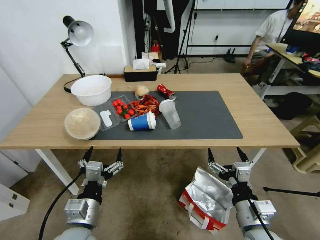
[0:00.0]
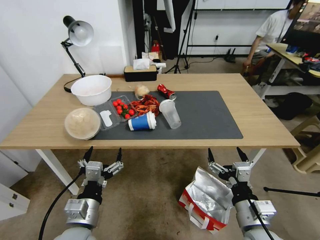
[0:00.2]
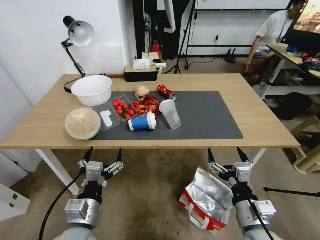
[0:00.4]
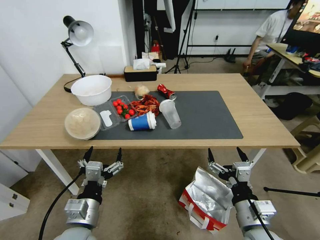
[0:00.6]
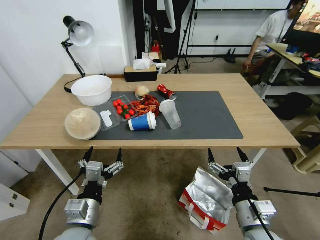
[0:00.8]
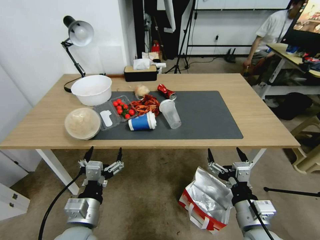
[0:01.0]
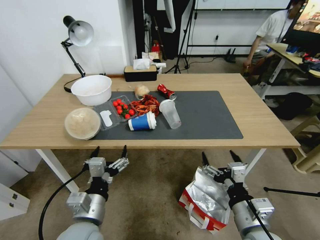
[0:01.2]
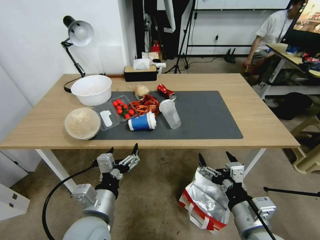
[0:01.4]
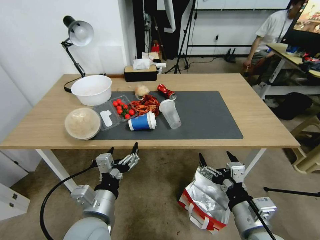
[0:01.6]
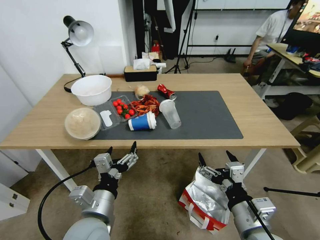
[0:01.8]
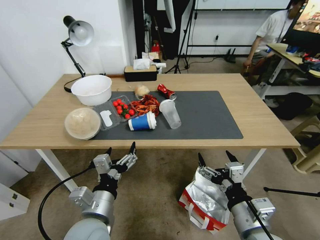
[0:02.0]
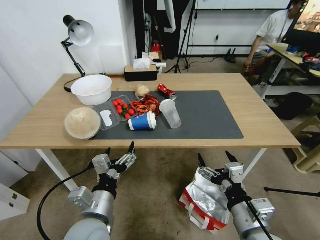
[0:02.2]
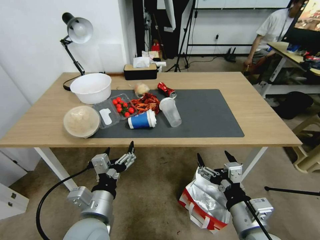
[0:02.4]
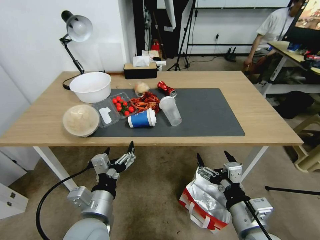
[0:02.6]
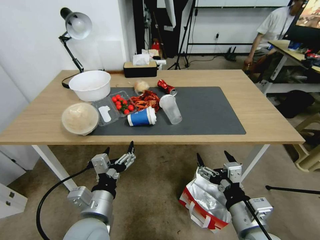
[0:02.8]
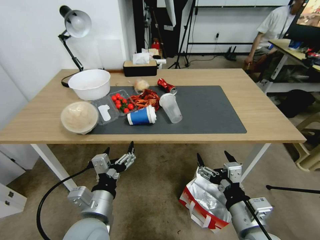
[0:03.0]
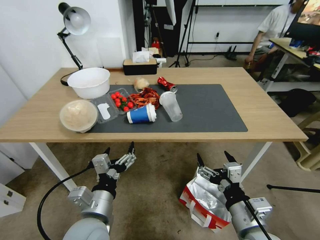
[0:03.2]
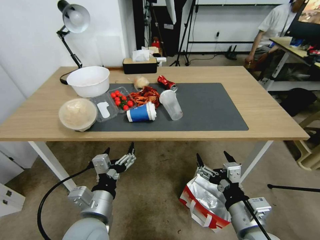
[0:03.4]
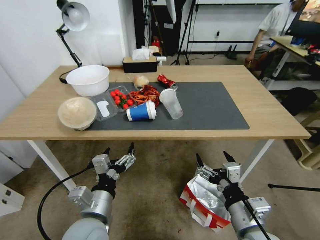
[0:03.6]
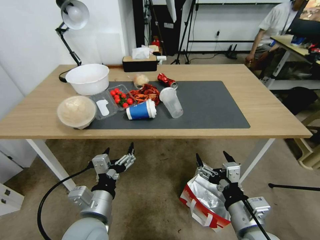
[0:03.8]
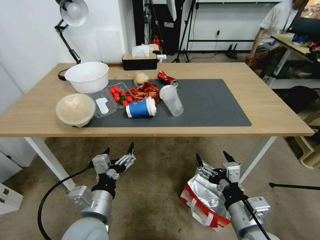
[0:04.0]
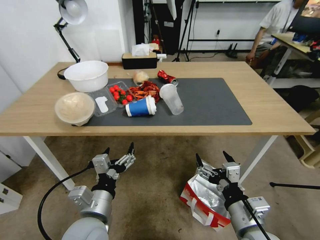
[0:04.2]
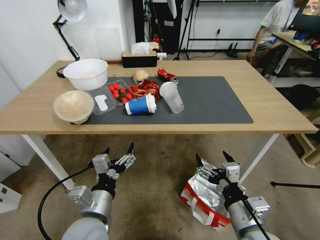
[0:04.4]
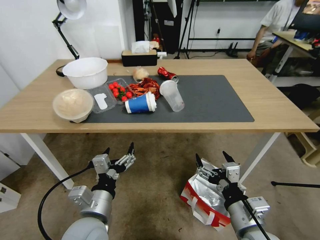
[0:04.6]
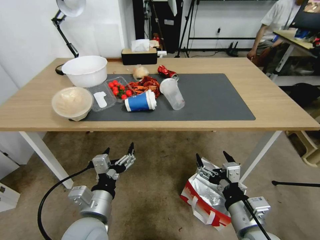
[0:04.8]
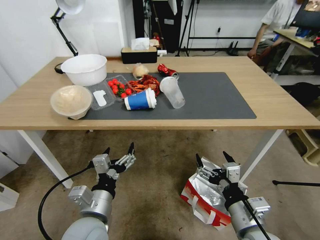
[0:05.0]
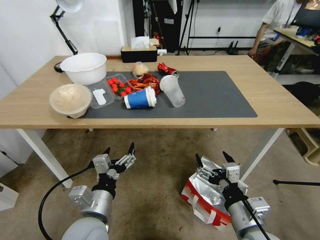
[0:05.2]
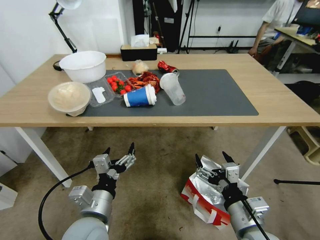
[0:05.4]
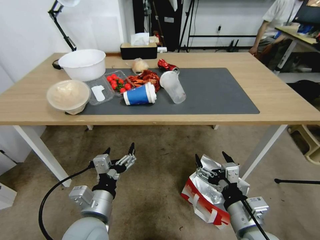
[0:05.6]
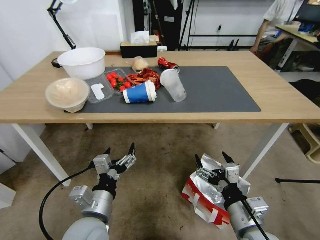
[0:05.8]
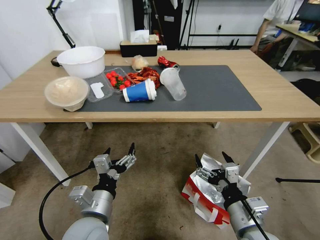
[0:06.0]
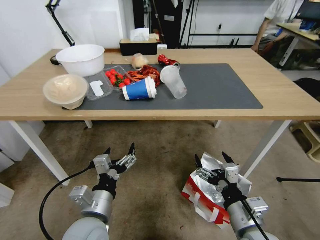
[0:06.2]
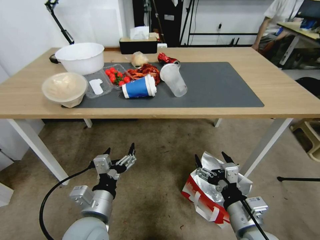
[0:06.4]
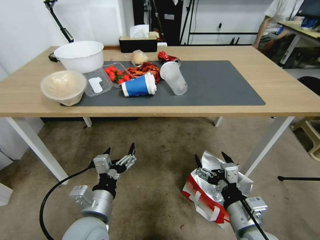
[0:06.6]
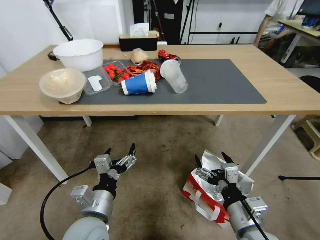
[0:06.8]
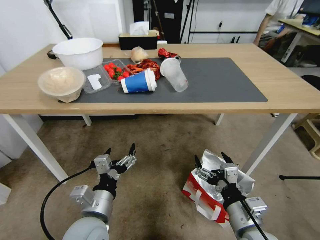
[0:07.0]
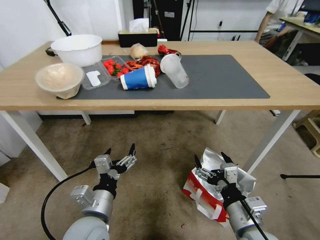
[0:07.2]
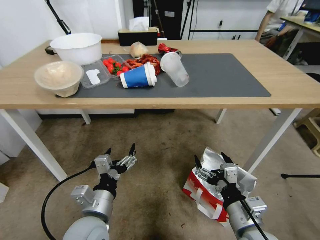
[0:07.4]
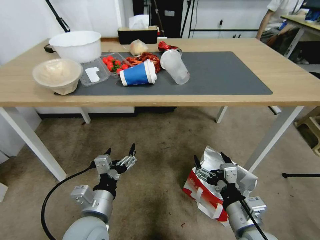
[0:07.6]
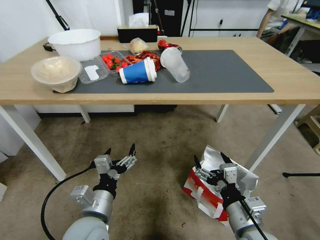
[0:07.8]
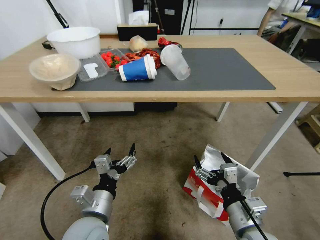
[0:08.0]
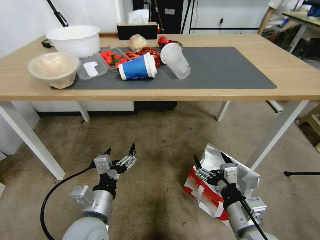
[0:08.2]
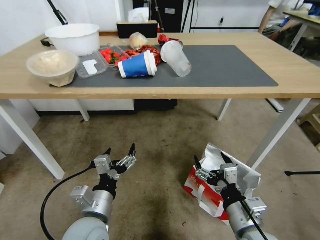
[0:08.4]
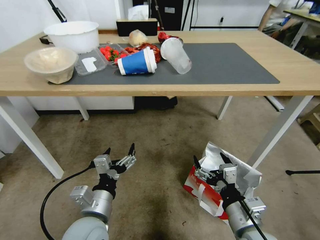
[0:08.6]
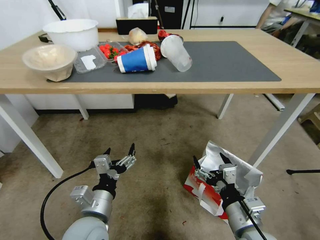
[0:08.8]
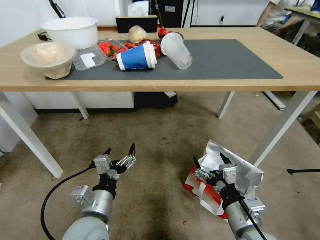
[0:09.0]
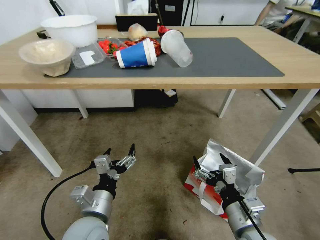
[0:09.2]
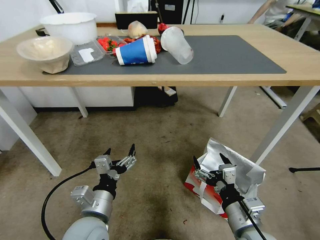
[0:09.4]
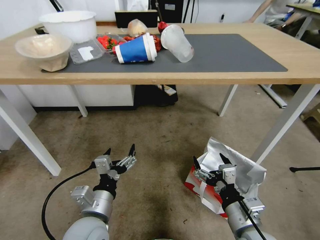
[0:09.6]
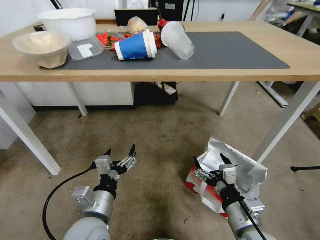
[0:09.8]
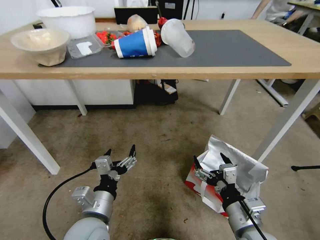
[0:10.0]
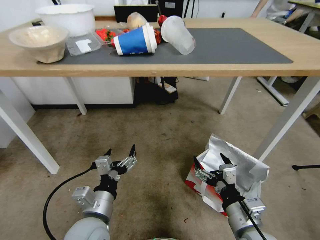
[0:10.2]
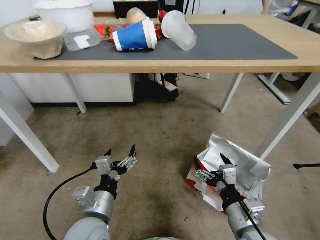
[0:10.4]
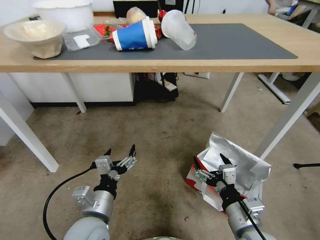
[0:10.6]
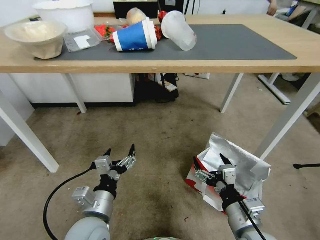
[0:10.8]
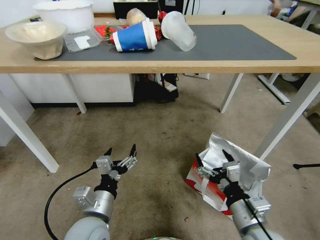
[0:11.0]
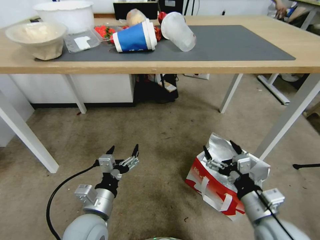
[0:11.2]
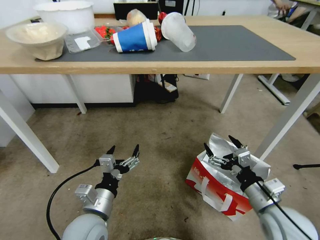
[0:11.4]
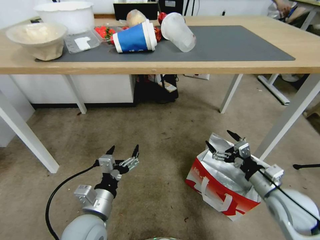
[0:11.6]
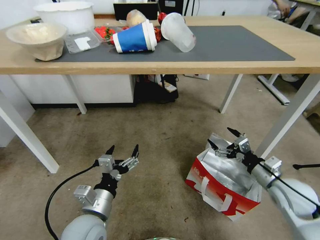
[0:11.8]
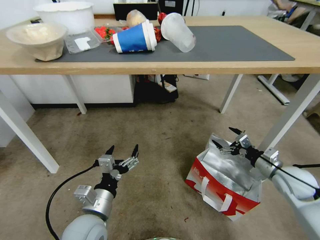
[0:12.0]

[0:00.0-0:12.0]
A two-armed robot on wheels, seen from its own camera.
Task of the whole recording: Pick up the food delivery bag from the floor and place it on the table.
0:10.4 to 0:12.0: The right gripper moves to the right and forward, about 25 cm.

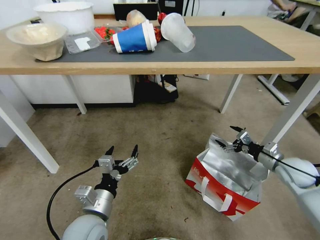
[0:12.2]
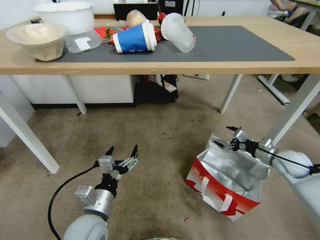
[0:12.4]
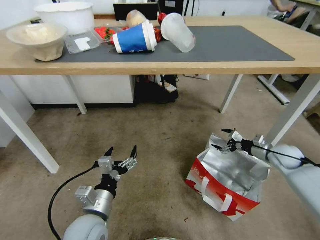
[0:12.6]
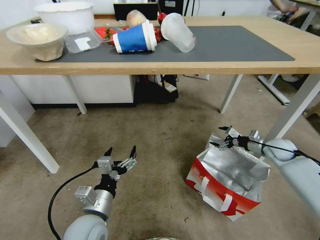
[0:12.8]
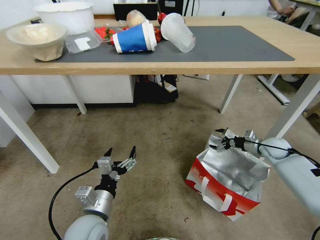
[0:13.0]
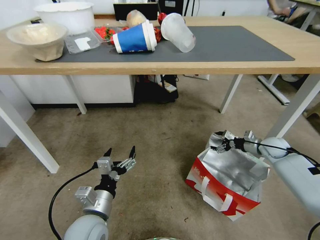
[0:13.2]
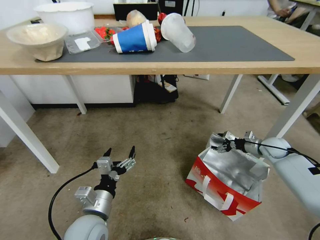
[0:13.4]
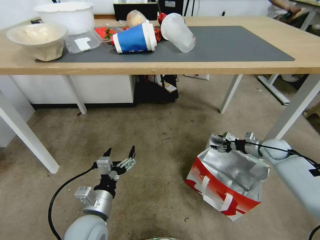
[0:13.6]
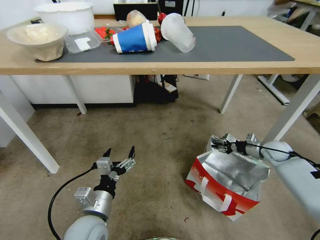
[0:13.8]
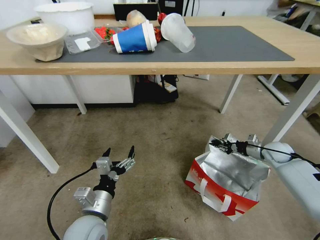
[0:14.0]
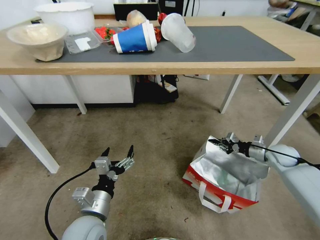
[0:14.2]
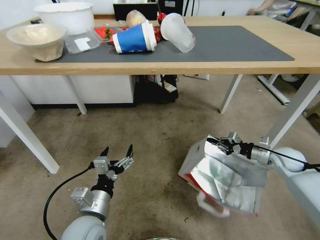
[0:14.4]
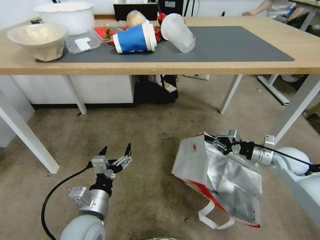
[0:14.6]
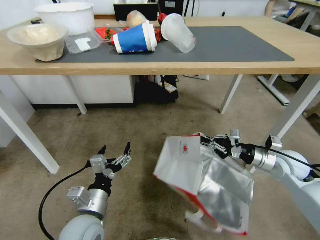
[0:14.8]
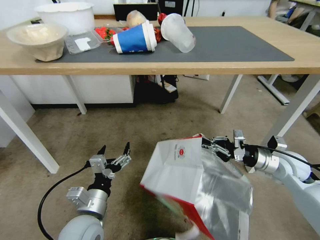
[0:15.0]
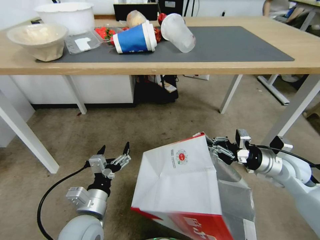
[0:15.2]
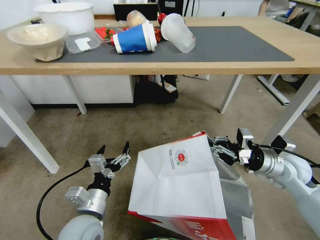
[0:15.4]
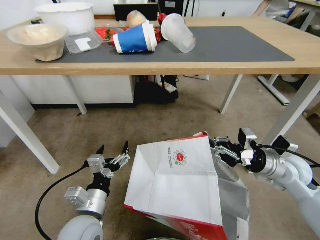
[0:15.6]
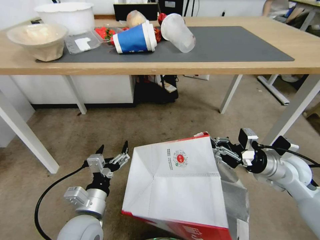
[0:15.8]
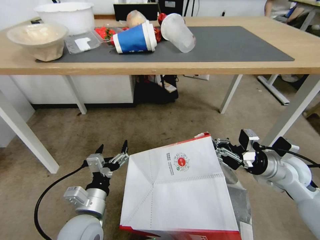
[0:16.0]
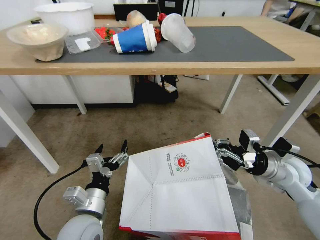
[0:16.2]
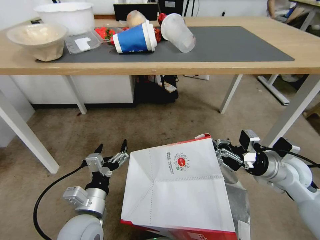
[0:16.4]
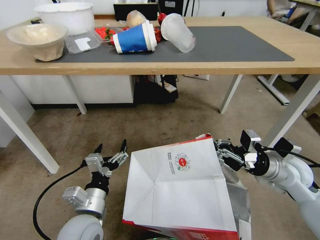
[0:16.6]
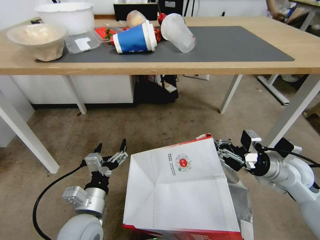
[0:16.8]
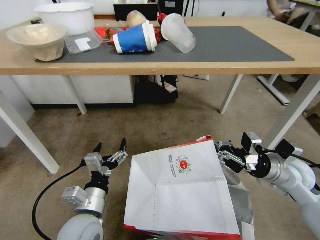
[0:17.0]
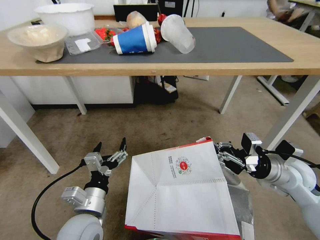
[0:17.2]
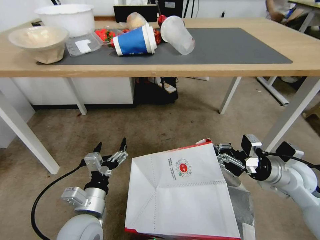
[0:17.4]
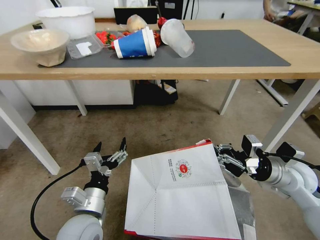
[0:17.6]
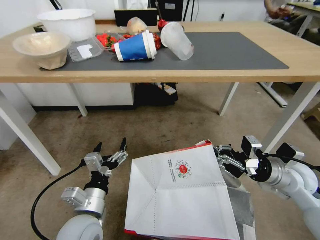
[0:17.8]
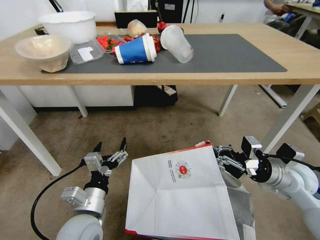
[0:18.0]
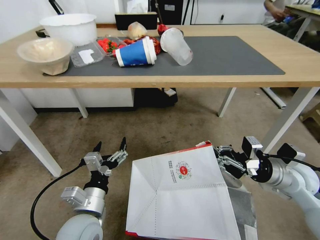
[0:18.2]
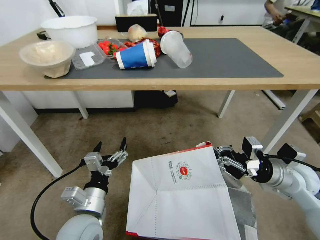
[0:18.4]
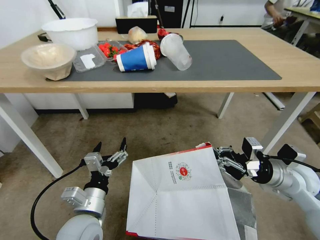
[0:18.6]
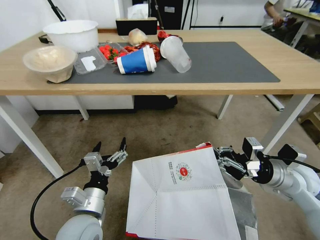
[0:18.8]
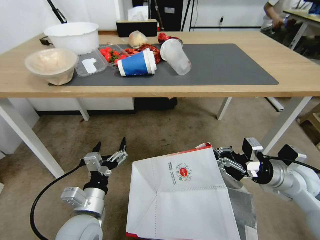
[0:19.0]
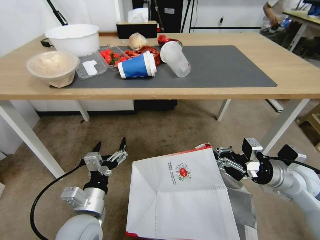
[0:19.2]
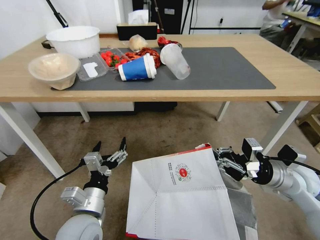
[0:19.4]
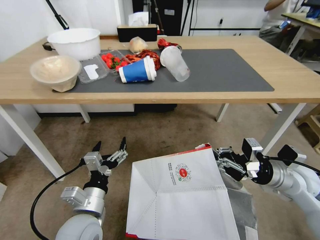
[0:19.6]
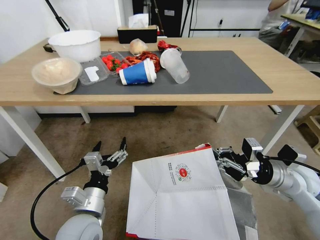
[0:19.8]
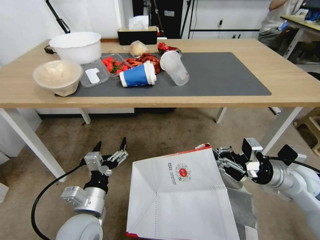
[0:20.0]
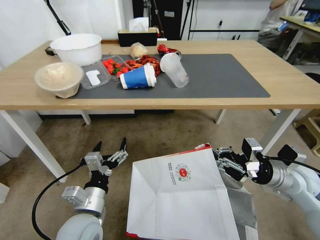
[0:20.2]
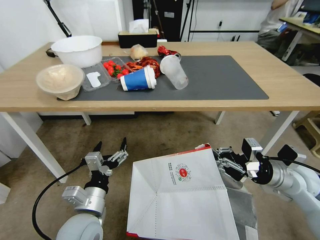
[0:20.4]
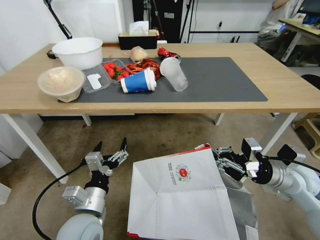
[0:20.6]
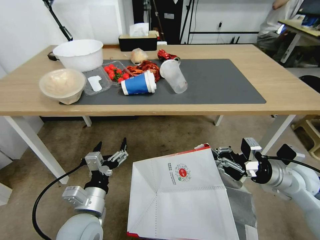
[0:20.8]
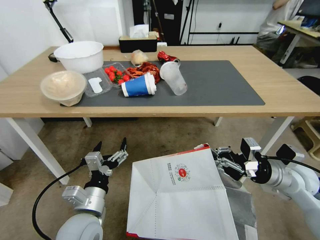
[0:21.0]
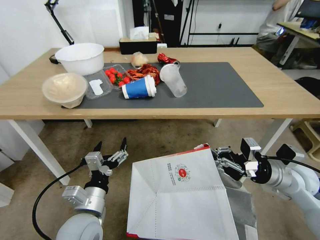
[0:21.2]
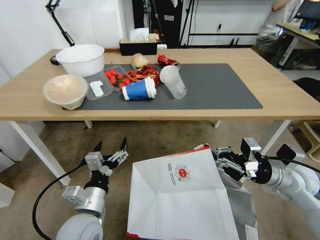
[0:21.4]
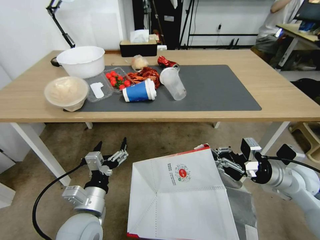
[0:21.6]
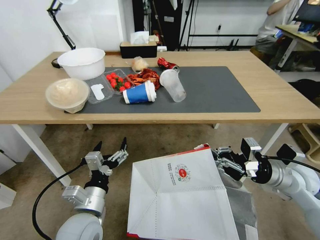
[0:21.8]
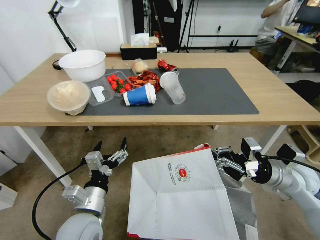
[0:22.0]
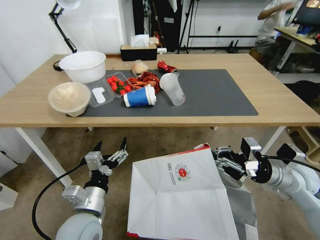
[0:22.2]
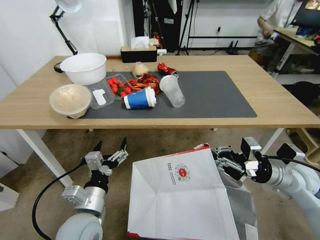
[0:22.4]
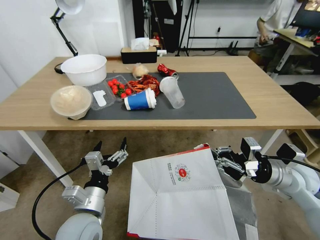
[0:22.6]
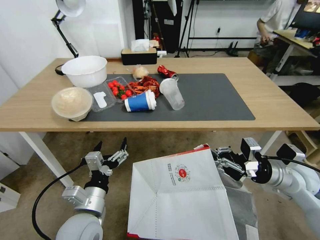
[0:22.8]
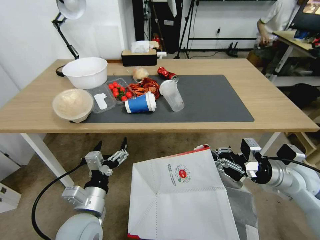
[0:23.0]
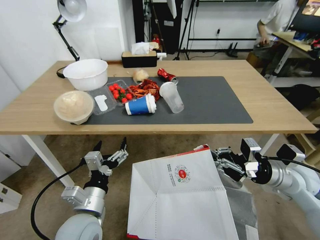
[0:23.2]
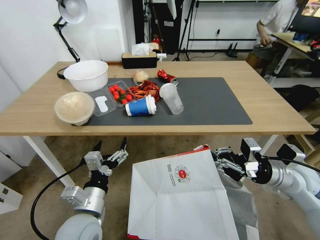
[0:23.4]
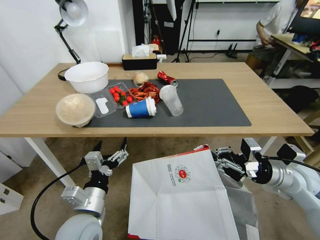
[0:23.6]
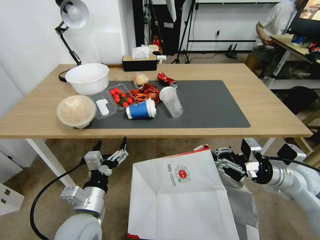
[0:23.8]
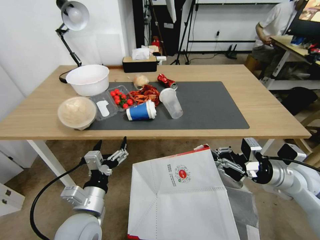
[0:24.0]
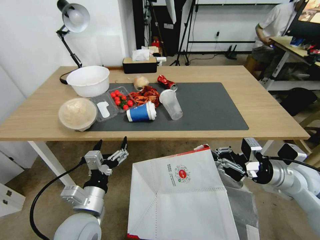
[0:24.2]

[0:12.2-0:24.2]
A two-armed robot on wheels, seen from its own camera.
Task of the whole recording: Pick up the food delivery bag from the floor and place it on the table.
0:12.2 to 0:13.8: The right gripper goes about 10 cm forward and downward, and closes up.
0:13.8 to 0:15.2: The right gripper moves backward, upward and to the left, roughly 20 cm, and closes its fingers.
0:15.2 to 0:16.6: There are only small adjustments of the grippers.
